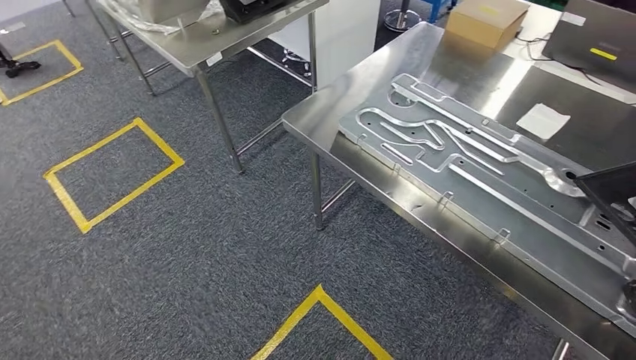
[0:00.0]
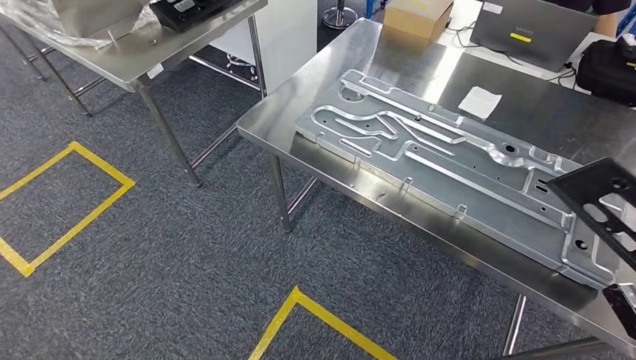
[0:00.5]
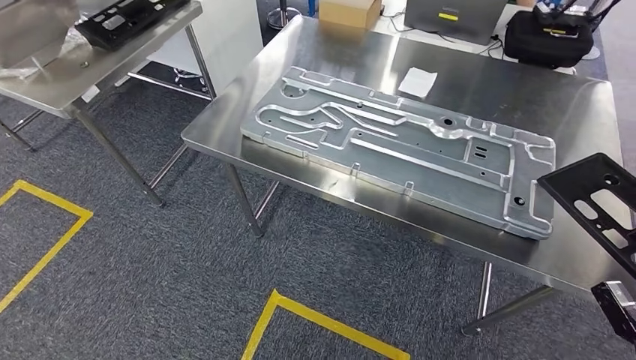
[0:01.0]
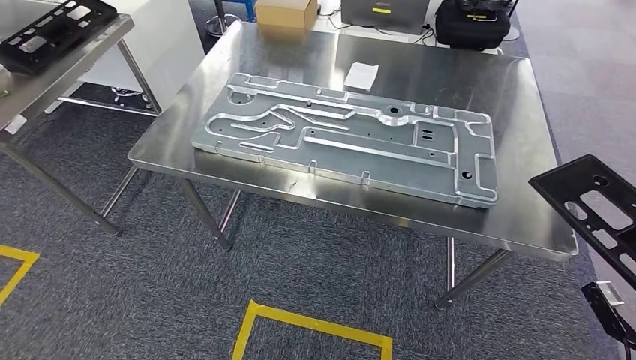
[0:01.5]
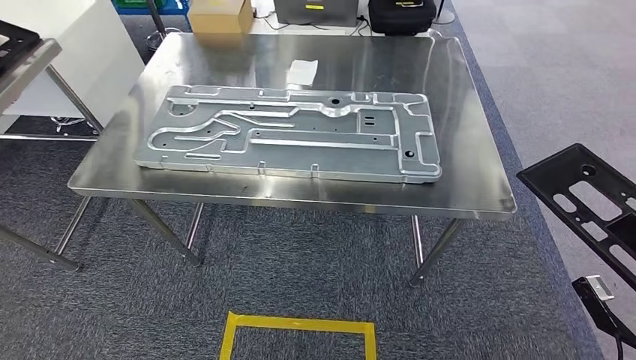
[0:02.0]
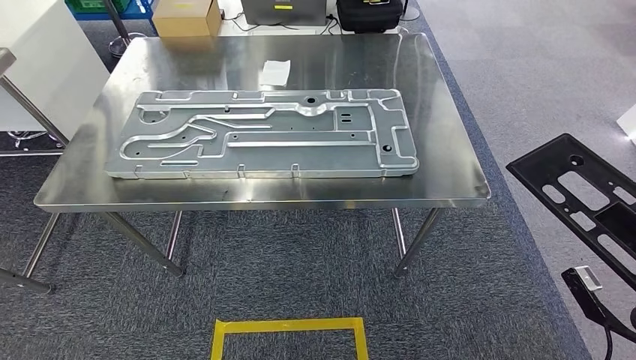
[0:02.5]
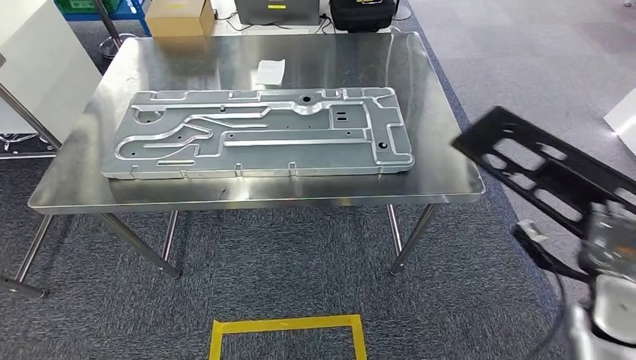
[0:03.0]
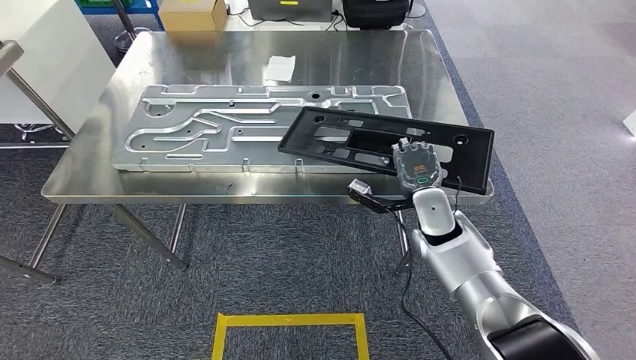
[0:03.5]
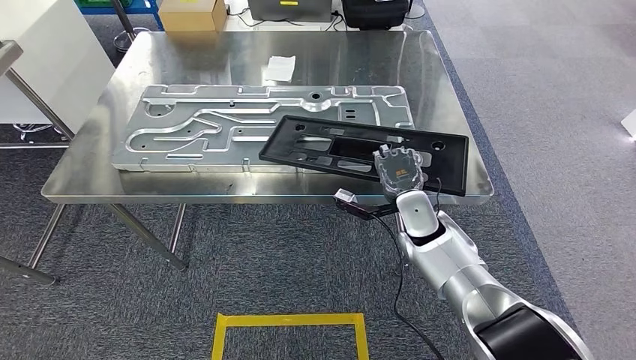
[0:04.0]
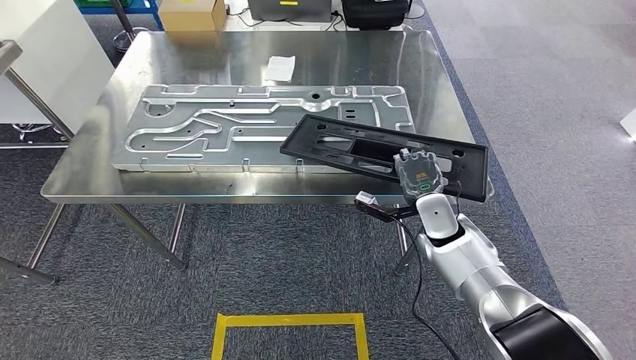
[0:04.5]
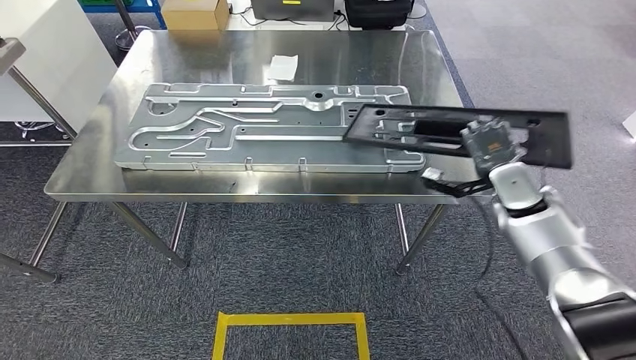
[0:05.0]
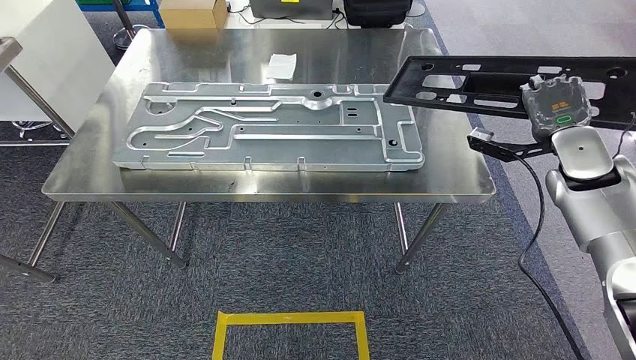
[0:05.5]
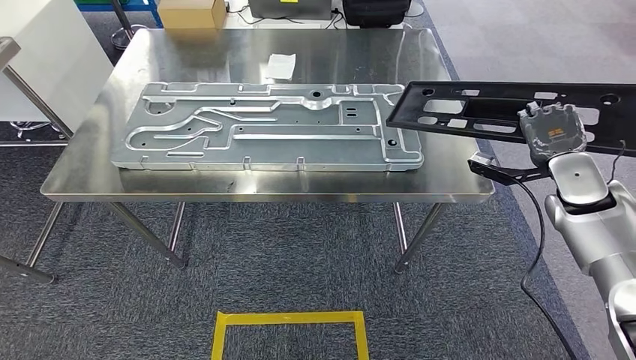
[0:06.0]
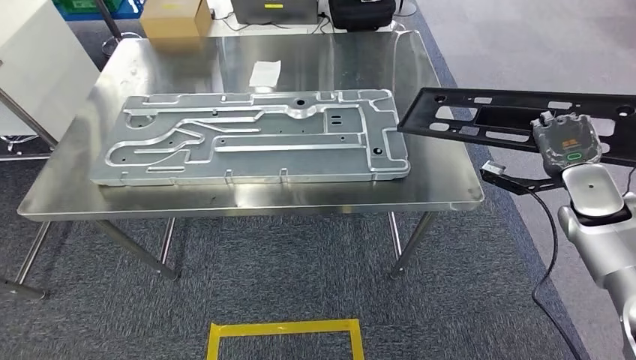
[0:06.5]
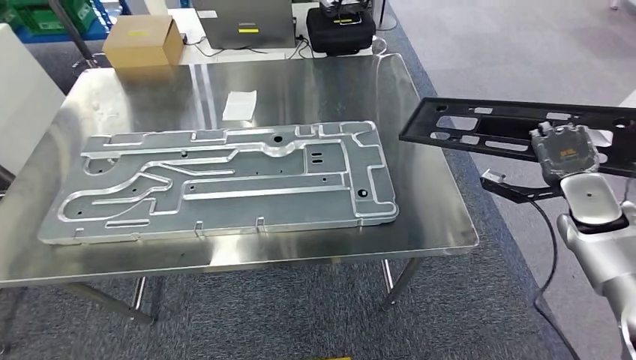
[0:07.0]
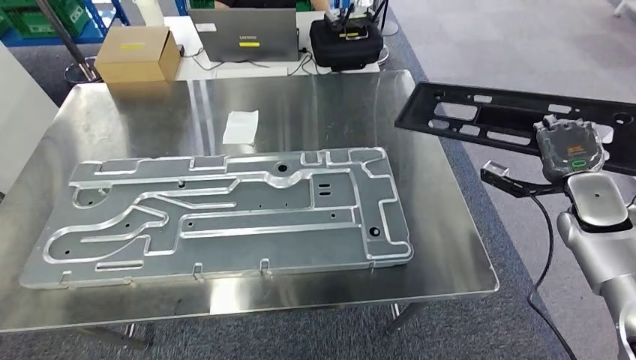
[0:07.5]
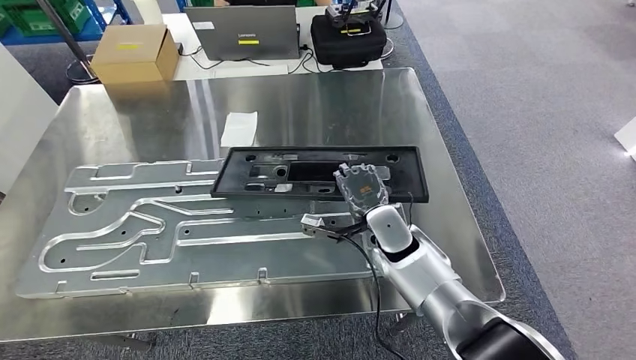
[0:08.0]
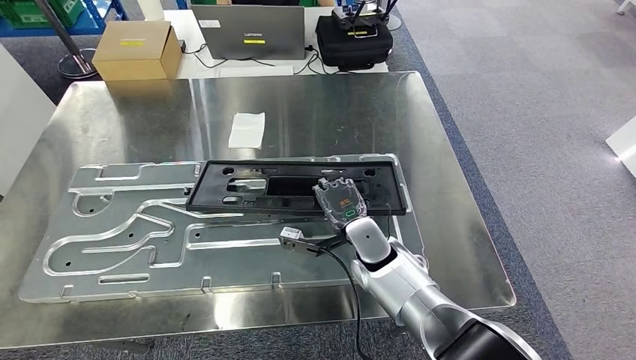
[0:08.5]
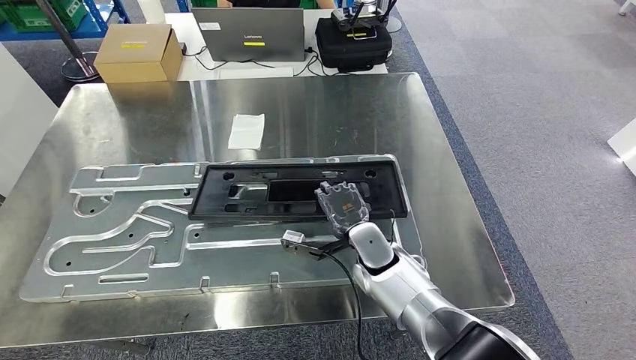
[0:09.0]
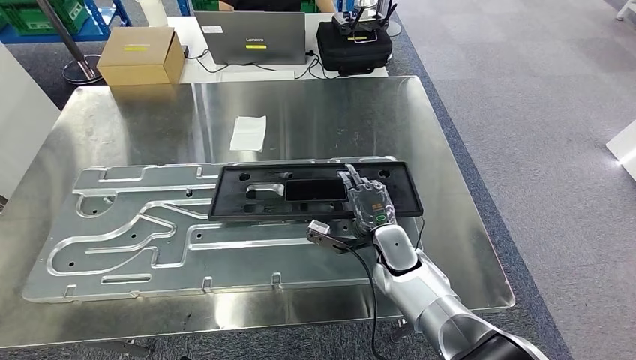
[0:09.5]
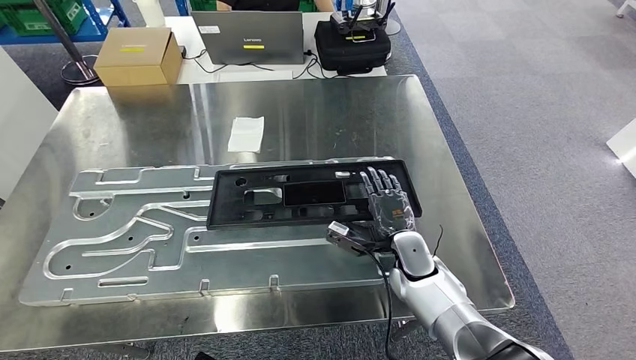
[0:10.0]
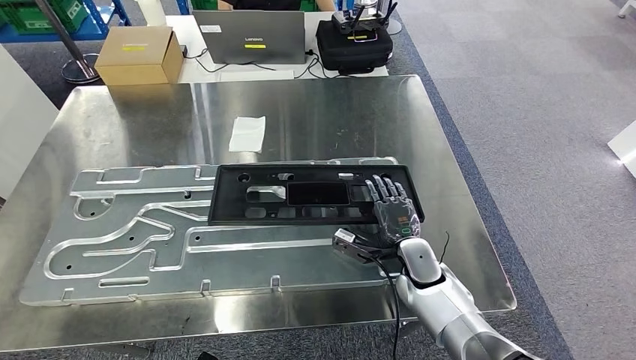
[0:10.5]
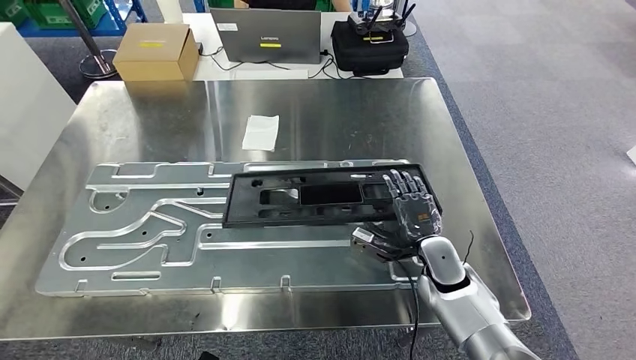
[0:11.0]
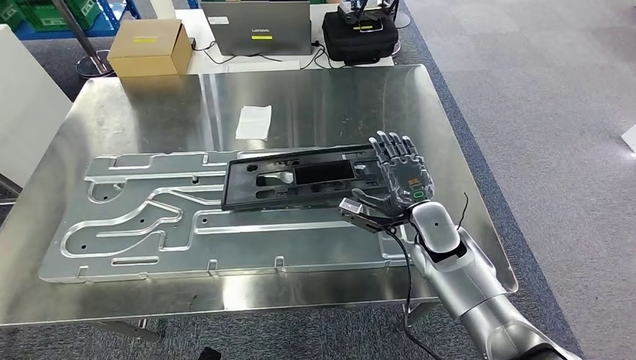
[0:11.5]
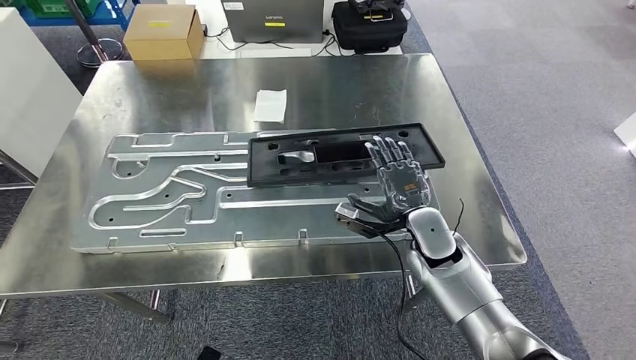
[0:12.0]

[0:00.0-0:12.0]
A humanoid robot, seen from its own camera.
Step, 0:00.0 to 0:04.0: Move the large material to the workbench.

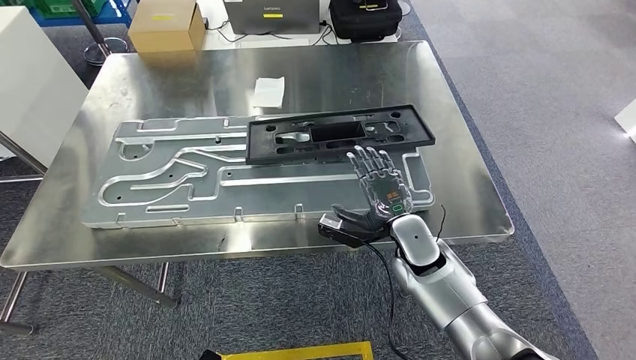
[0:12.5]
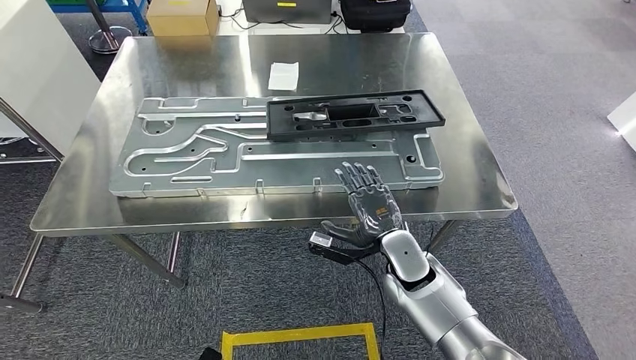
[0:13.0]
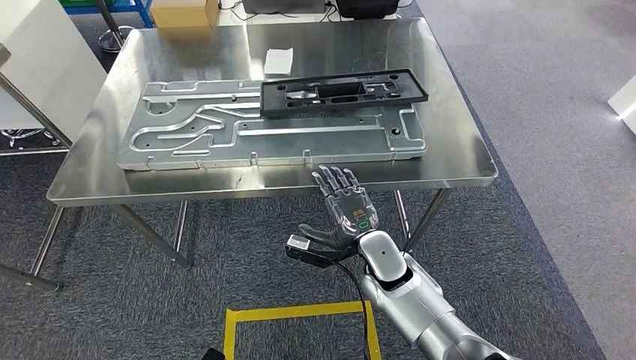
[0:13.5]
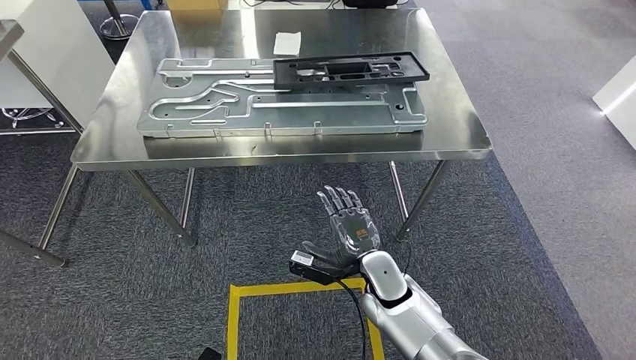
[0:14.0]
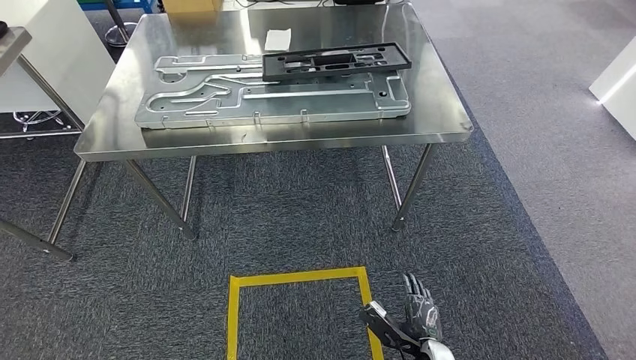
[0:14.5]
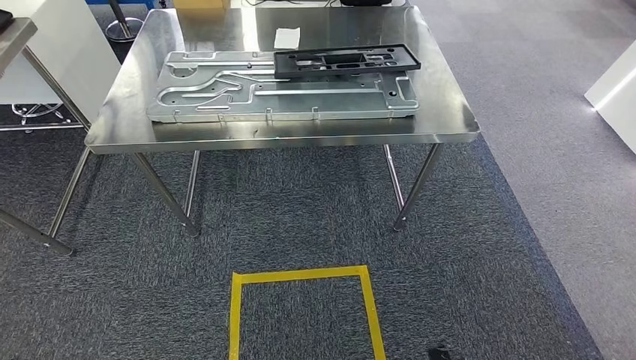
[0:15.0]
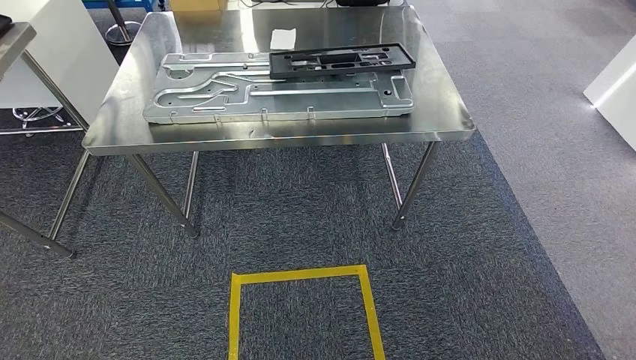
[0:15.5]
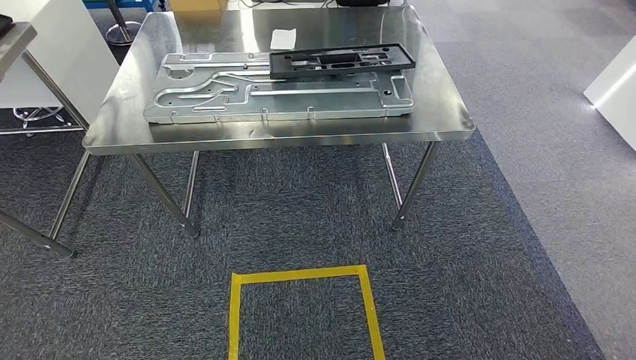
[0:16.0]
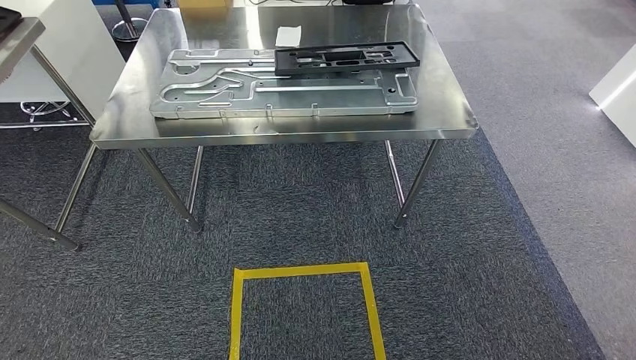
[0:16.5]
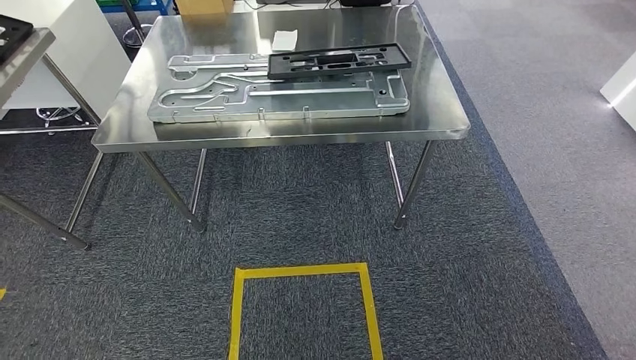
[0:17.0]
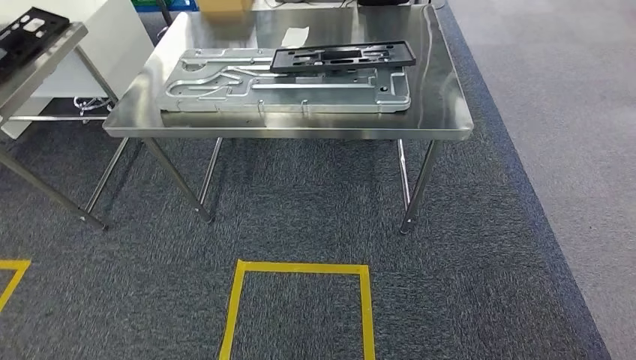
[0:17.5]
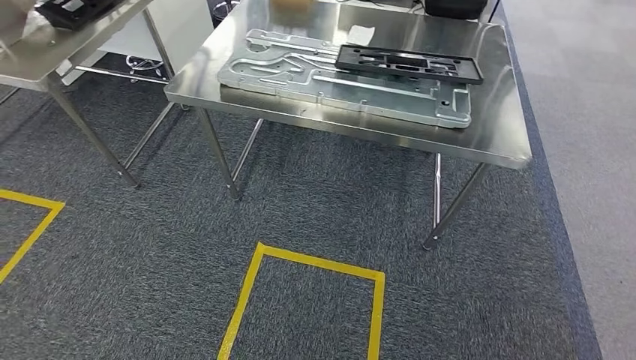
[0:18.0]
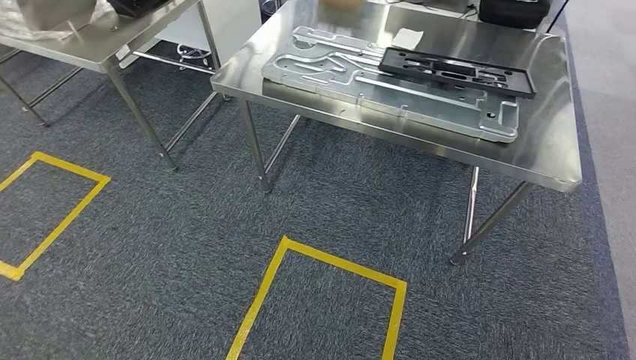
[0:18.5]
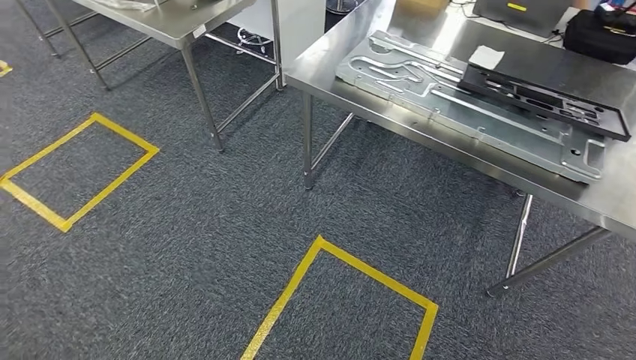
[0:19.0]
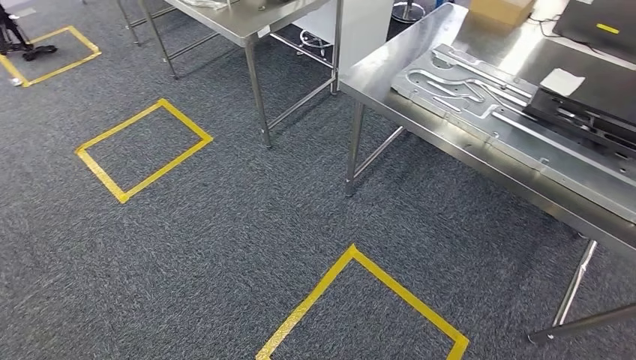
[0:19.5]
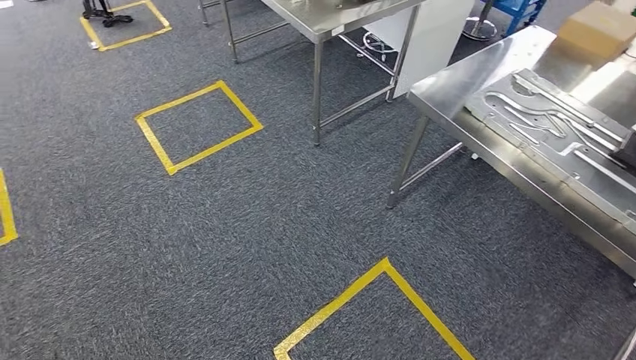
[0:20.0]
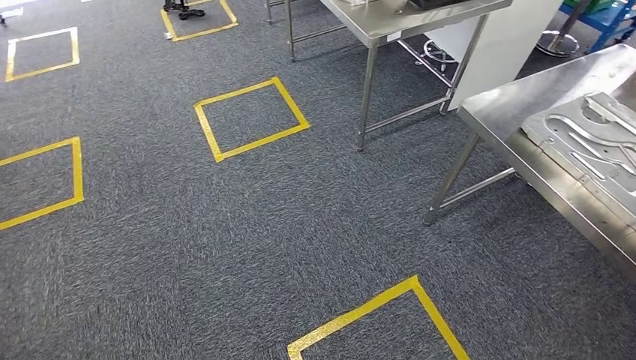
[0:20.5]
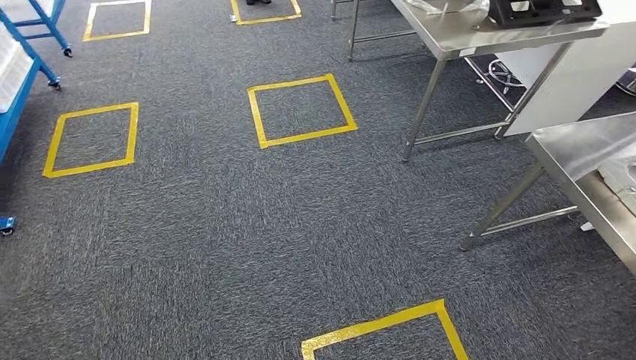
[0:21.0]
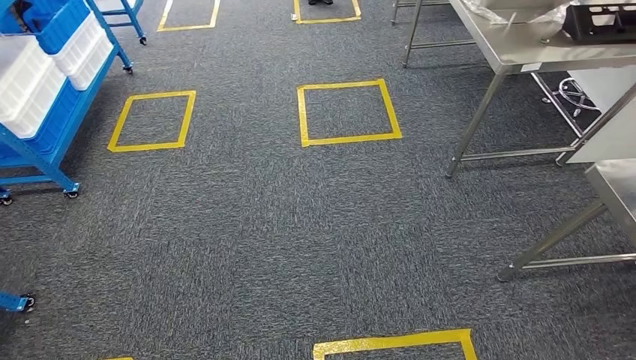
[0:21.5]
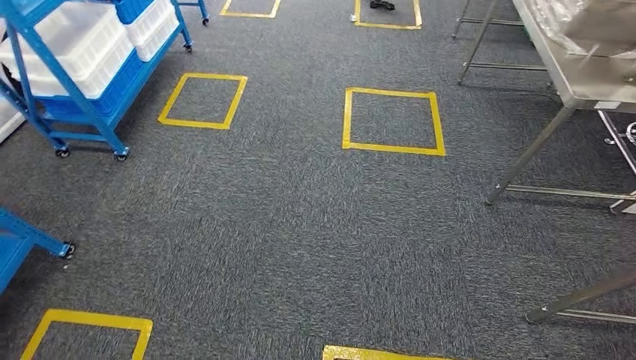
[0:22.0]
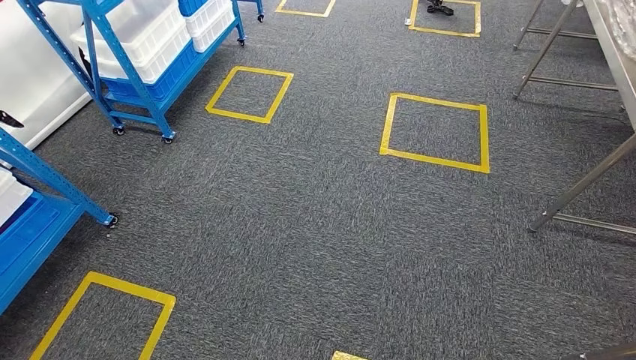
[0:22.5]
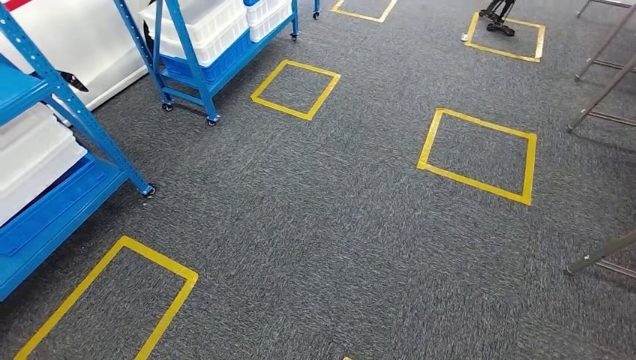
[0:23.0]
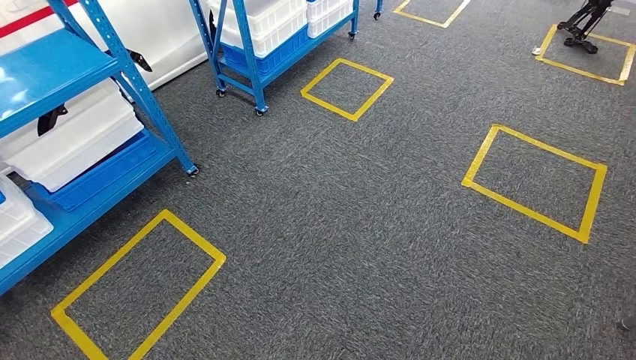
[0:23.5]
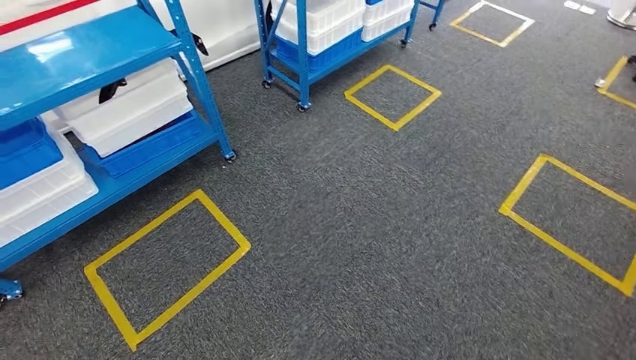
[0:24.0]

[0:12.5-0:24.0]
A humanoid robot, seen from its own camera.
Step, 0:12.5 to 0:15.0: Insert the large material into the corresponding slot on the workbench.
0:14.5 to 0:16.5: The right hand heads backward and downward, covering roughly 20 cm.